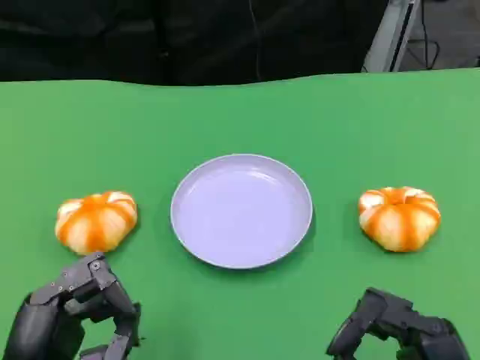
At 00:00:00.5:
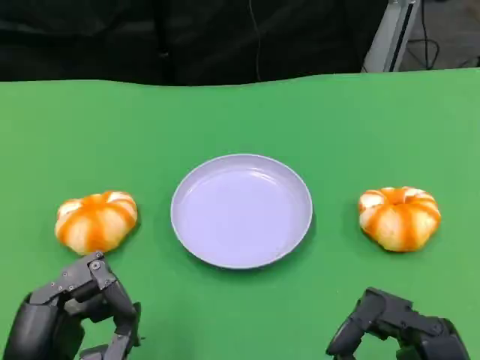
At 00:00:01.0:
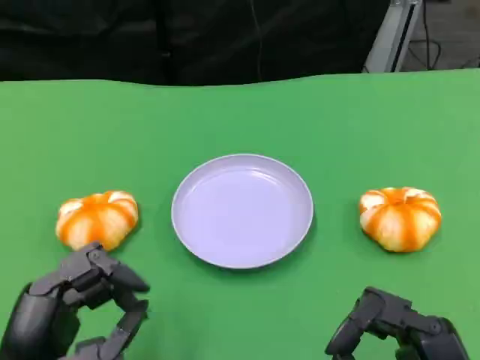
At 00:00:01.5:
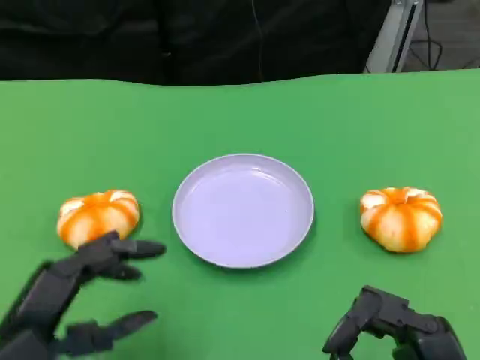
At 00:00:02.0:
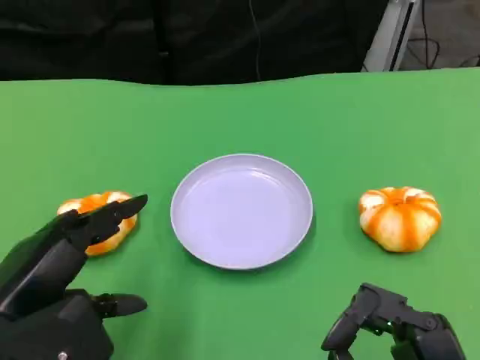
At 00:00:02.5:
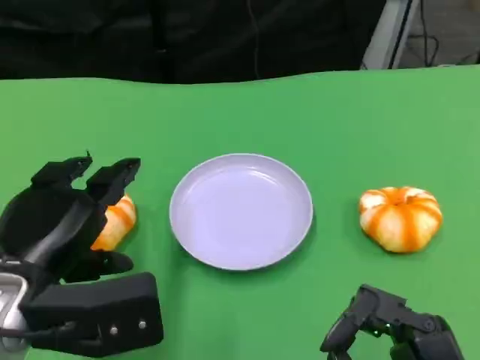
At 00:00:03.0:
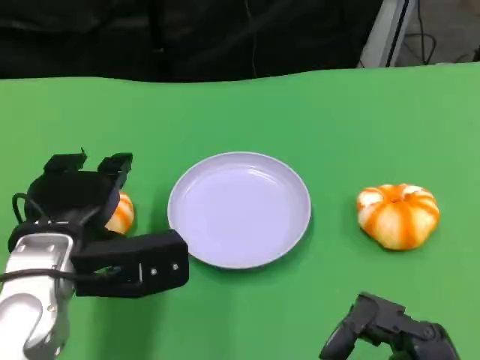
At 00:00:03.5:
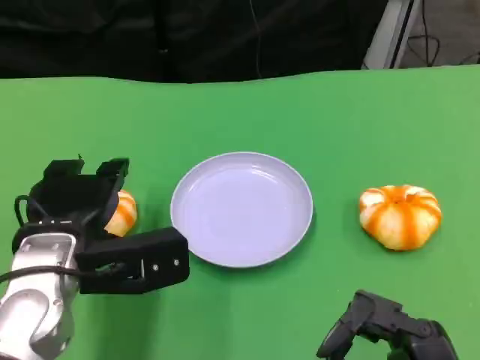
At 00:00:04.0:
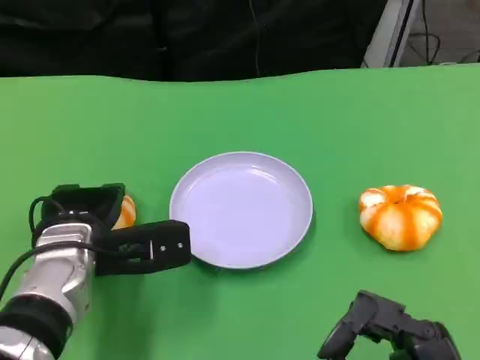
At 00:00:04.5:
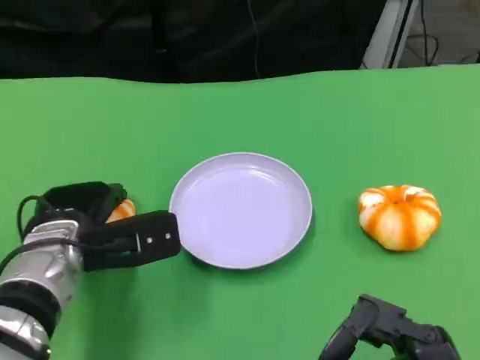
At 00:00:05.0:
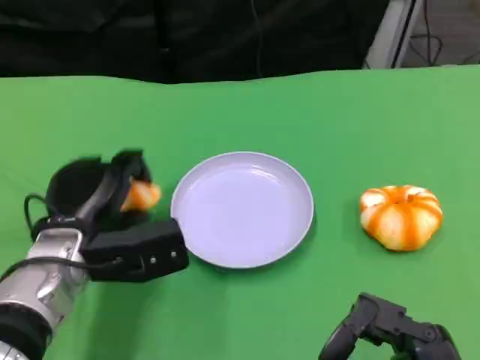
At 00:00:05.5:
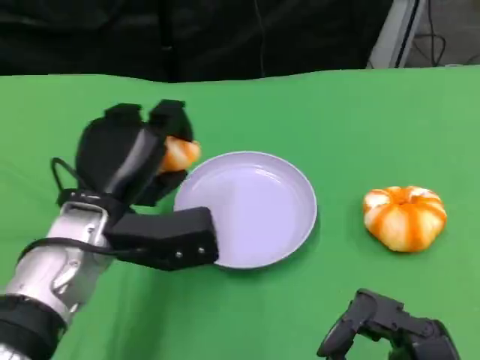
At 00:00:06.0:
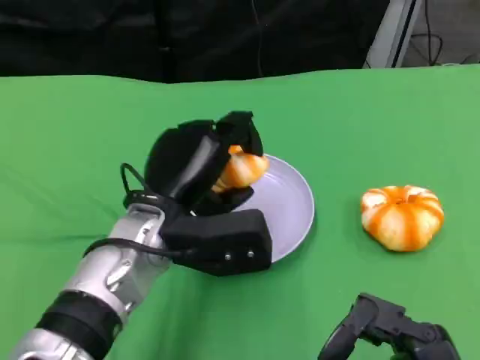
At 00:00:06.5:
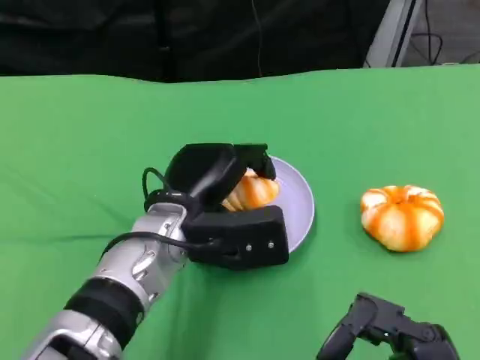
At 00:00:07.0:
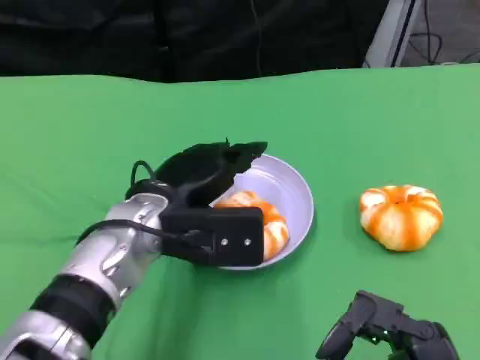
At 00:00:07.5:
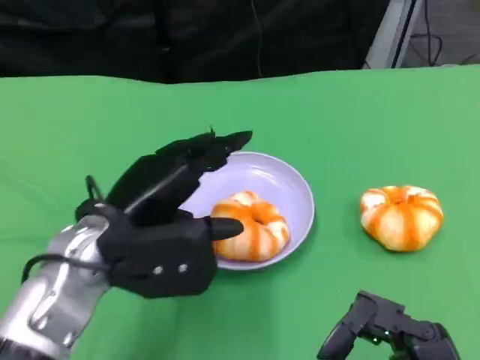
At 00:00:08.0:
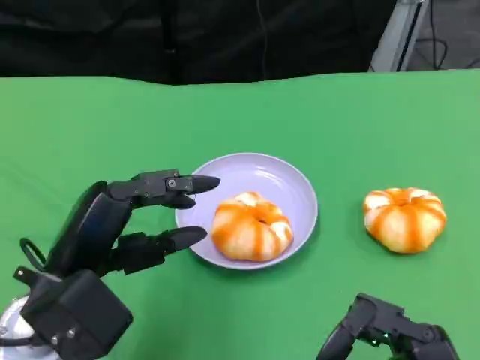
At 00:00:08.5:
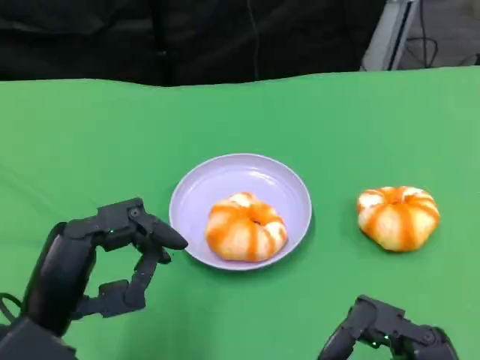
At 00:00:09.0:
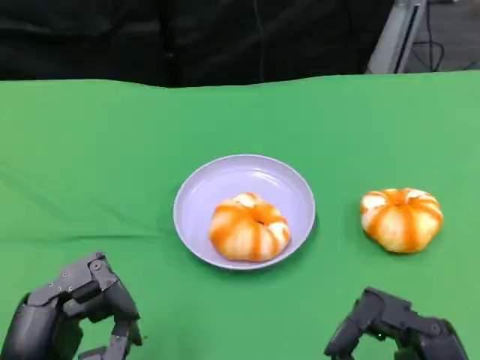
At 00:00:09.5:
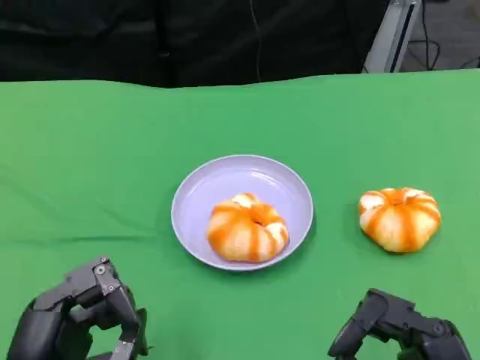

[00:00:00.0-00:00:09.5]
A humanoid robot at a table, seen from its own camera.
Task of the whole recording: Grasp the bread from the table and place it into the plate.
00:00:00.0 to 00:00:02.0: The left hand goes roughly 5 cm upward.
00:00:02.0 to 00:00:04.0: The left hand heads forward, downward and to the right, covering about 15 cm.
00:00:04.0 to 00:00:05.5: The left hand shifts by roughly 5 cm.
00:00:07.5 to 00:00:09.5: The left hand goes some 15 cm backward.

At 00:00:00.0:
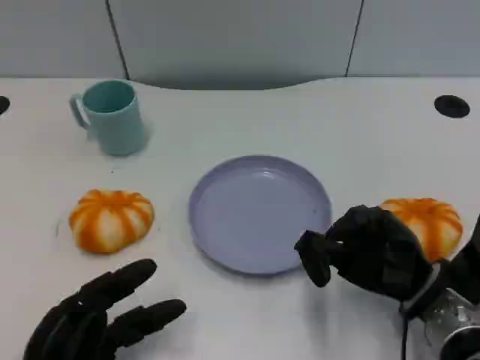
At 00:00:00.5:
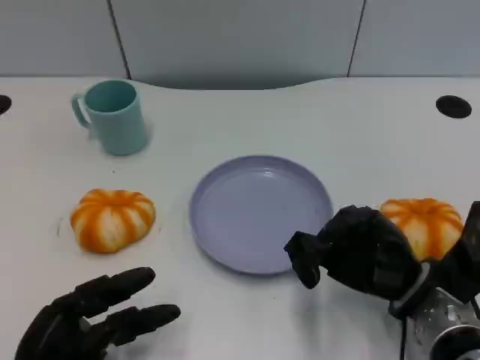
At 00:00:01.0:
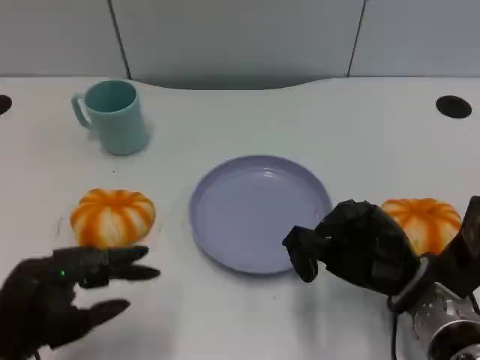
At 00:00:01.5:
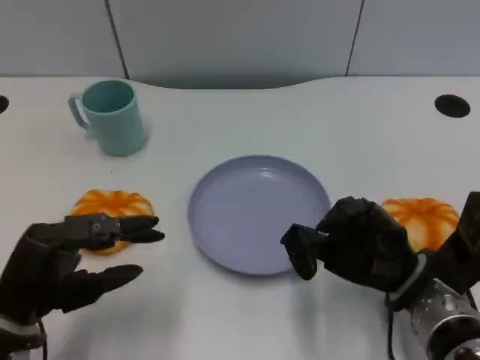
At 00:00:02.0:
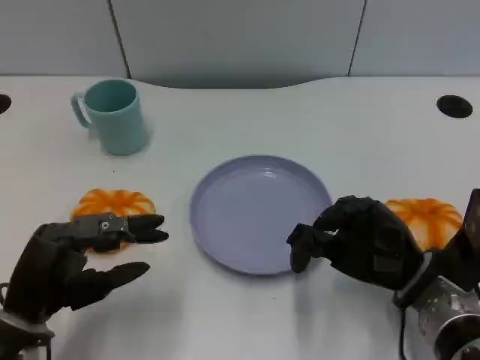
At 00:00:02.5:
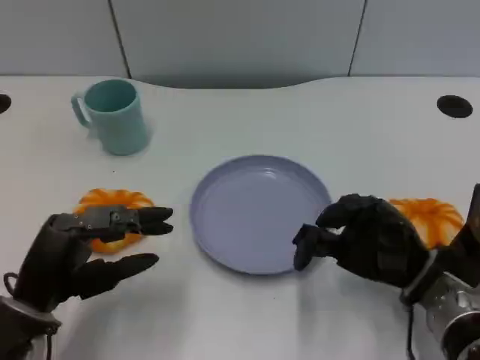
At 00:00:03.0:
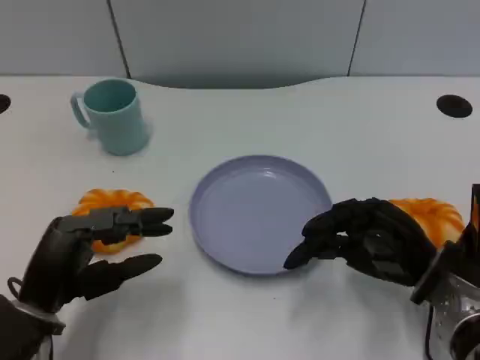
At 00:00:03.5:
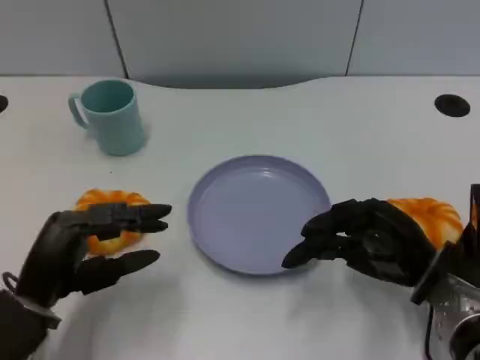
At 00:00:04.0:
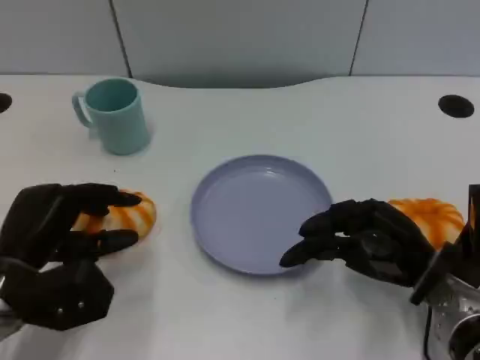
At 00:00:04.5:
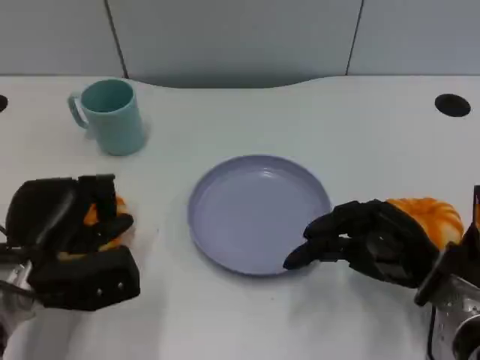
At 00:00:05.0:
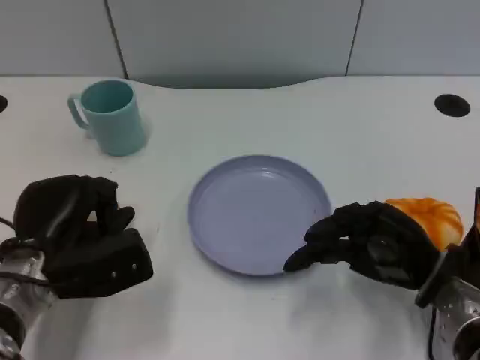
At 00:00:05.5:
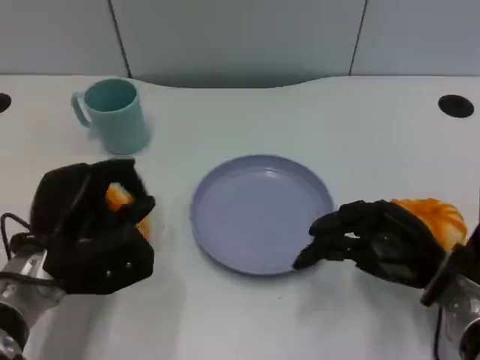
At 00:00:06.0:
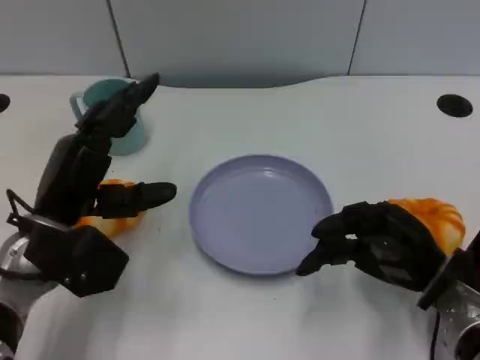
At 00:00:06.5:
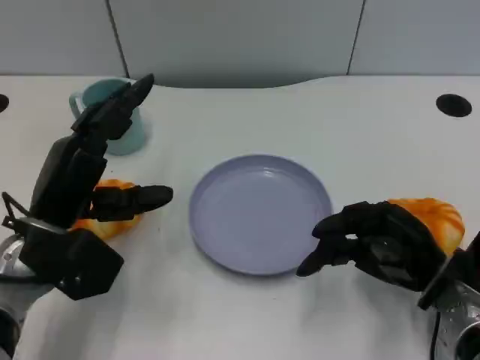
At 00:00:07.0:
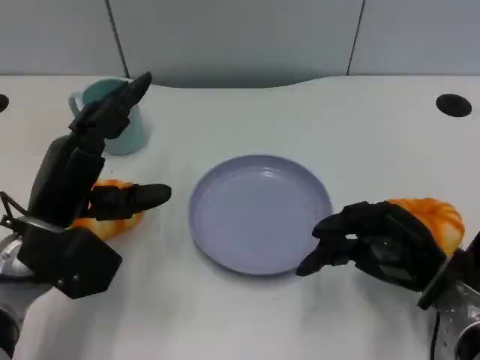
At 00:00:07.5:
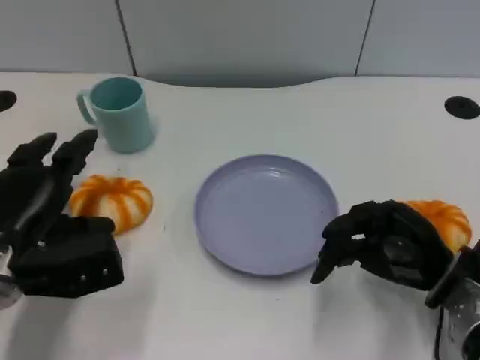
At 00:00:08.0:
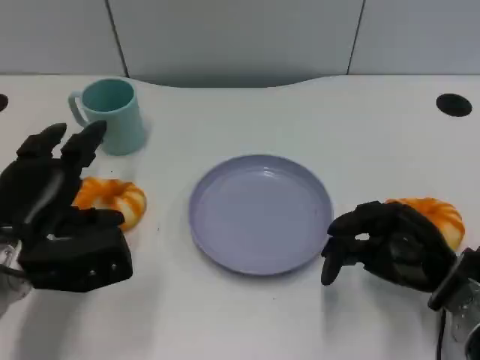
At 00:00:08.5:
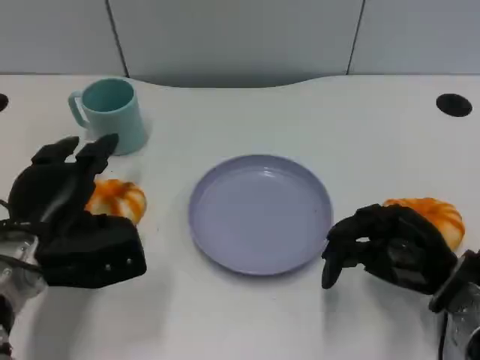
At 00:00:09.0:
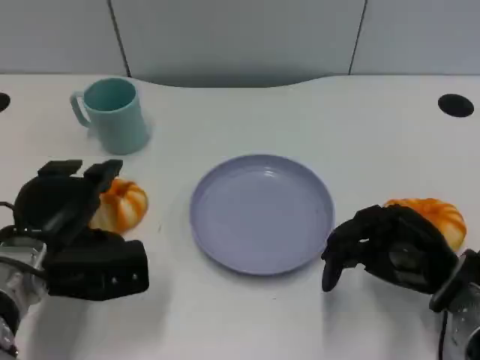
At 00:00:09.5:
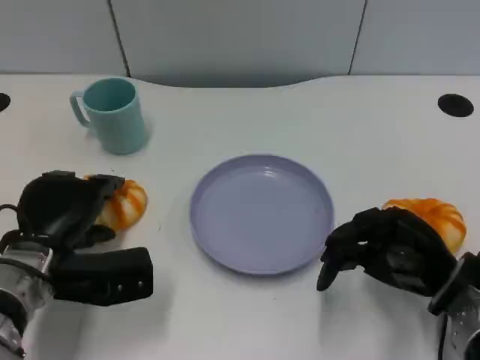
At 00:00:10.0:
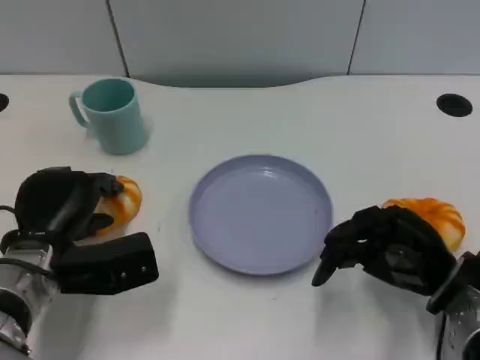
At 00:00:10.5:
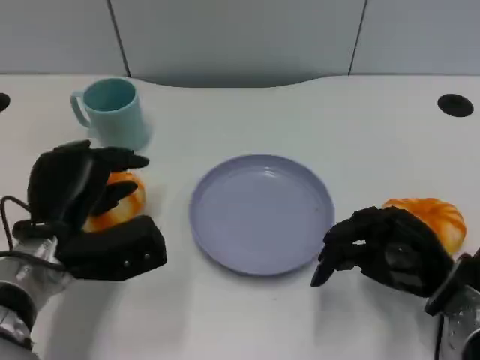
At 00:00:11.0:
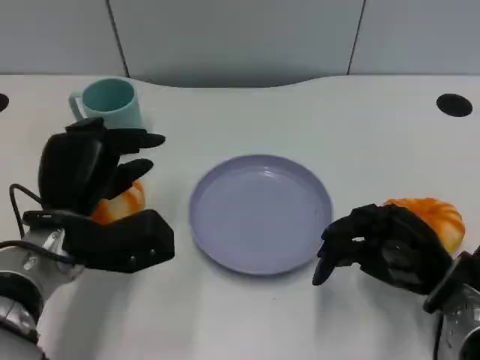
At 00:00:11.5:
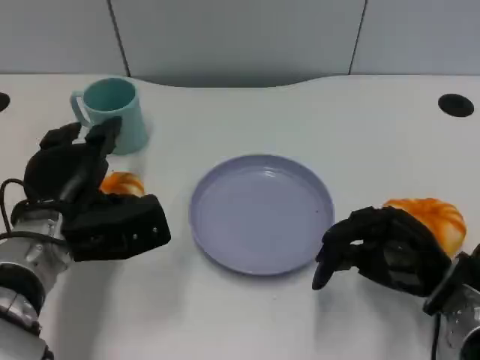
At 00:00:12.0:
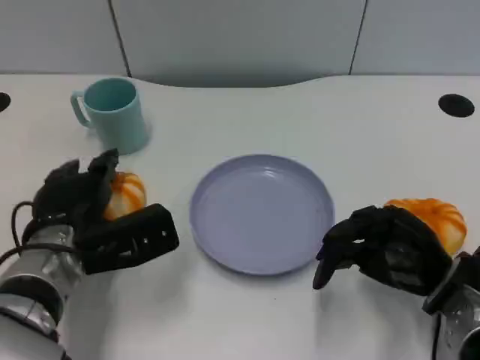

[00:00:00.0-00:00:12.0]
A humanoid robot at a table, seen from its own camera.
Task of the whole recording: Grasp the bread from the table and place it into the plate.
00:00:00.0 to 00:00:02.0: The left hand shifts some 5 cm upward and forward.
00:00:04.0 to 00:00:06.0: The left hand ends up approximately 5 cm from where it was.
00:00:08.0 to 00:00:10.0: There are only small adjustments of the hands.

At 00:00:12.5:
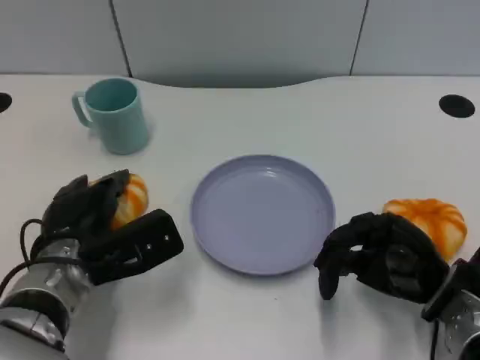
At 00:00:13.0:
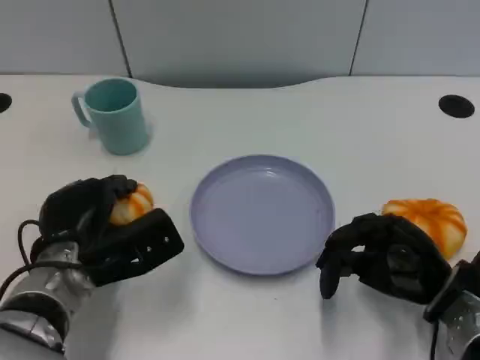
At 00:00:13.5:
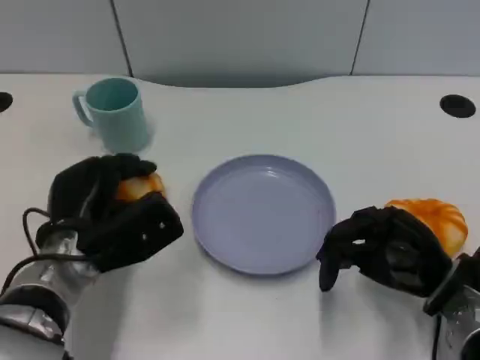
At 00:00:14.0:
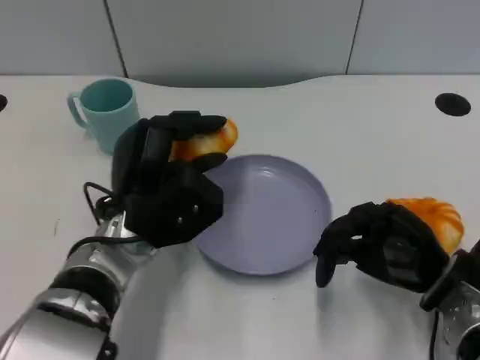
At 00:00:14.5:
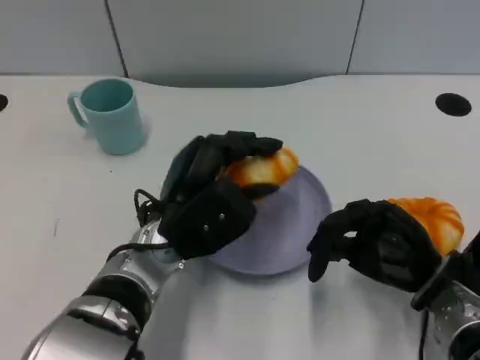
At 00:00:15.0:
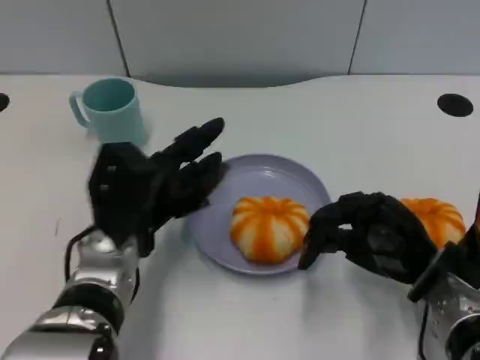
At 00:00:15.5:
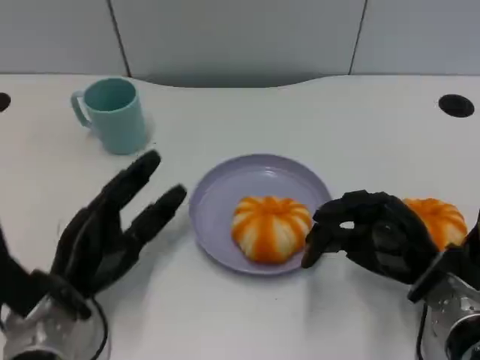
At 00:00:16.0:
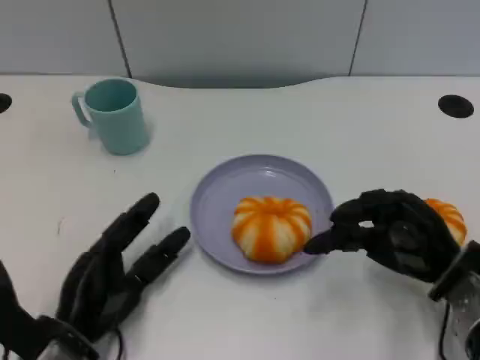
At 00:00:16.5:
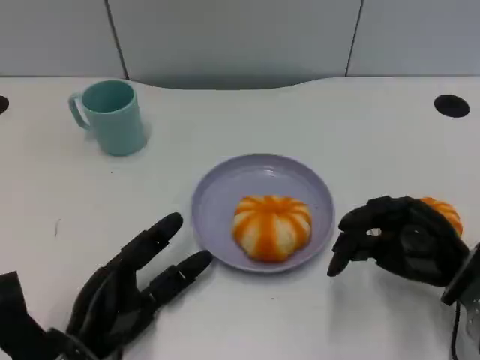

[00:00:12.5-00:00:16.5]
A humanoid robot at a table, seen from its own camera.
Task of the whole recording: Grasp the bread from the table and place it into the plate.
00:00:12.5 to 00:00:14.5: The left hand heads to the right, covering roughly 10 cm.
00:00:14.5 to 00:00:16.5: The left hand goes roughly 15 cm to the left, downward and backward.
